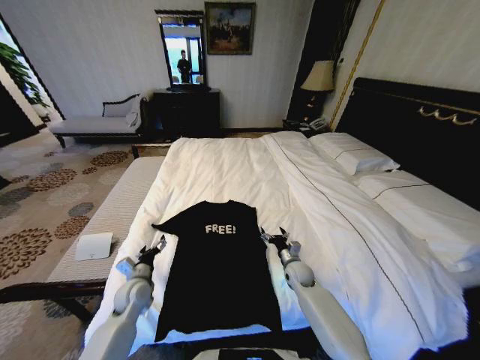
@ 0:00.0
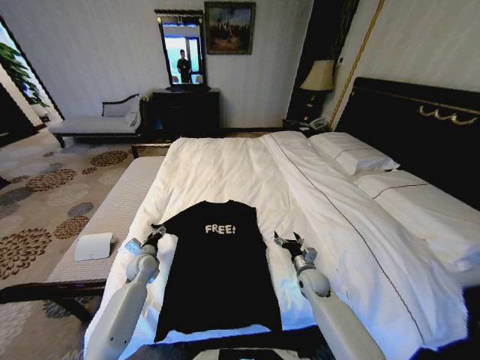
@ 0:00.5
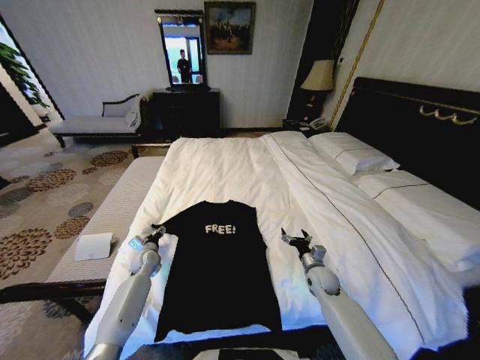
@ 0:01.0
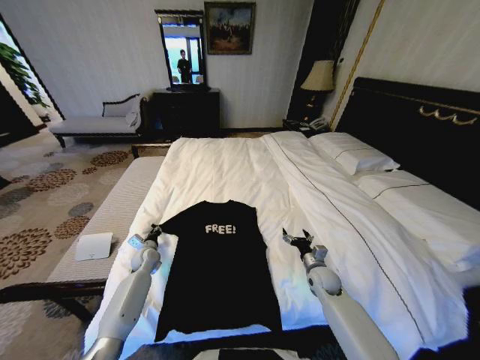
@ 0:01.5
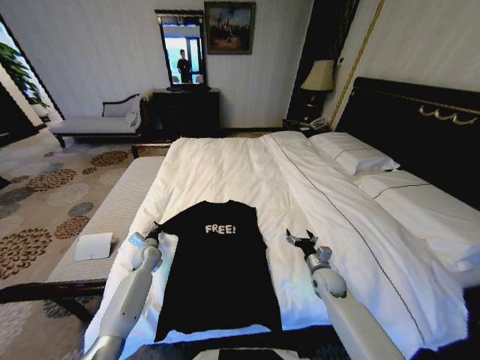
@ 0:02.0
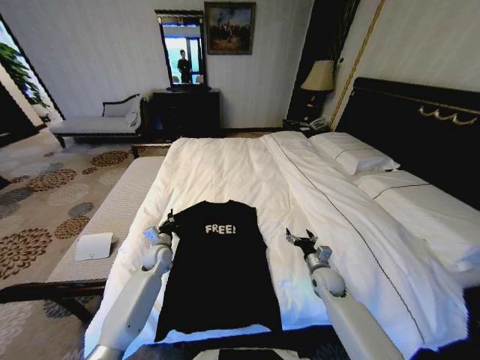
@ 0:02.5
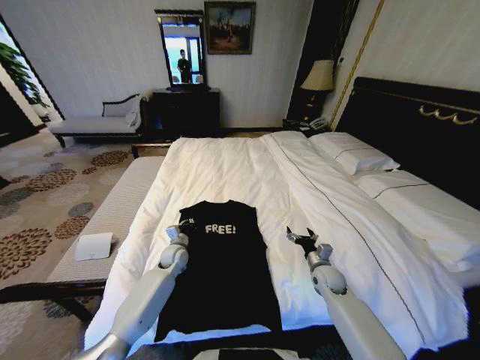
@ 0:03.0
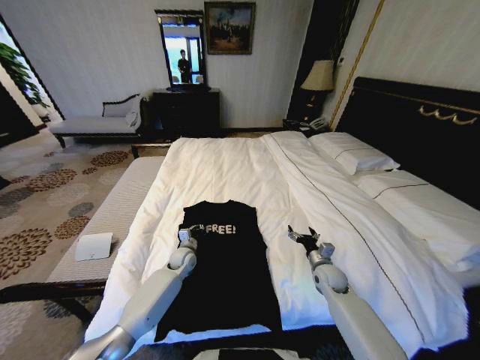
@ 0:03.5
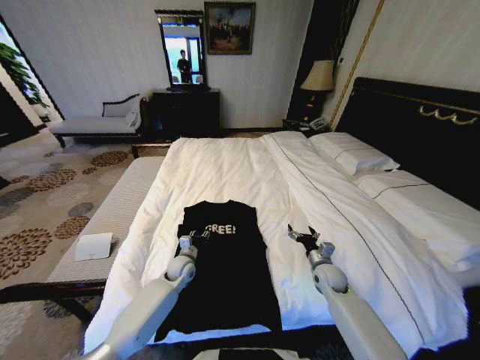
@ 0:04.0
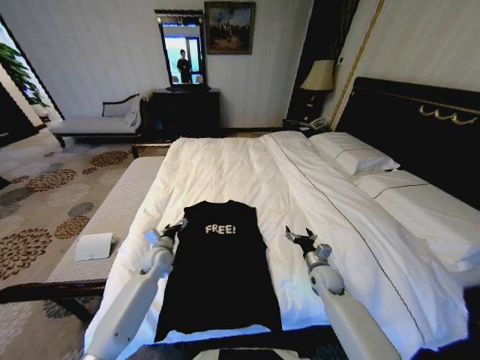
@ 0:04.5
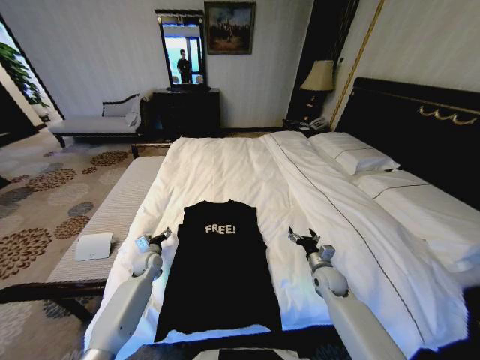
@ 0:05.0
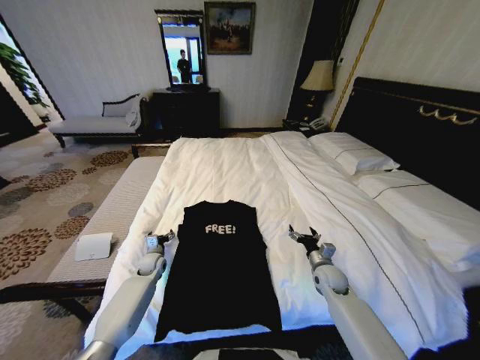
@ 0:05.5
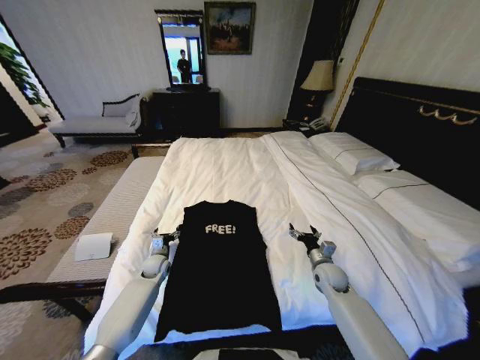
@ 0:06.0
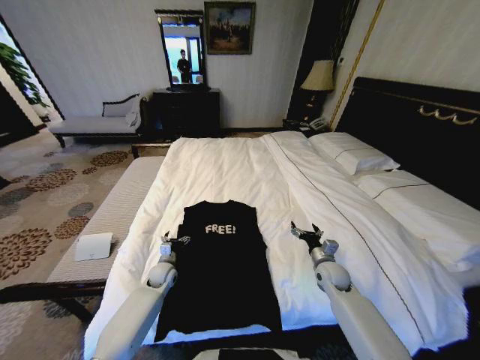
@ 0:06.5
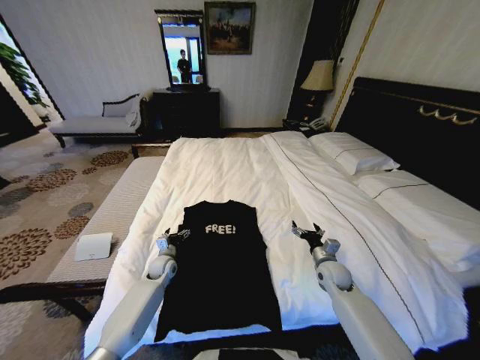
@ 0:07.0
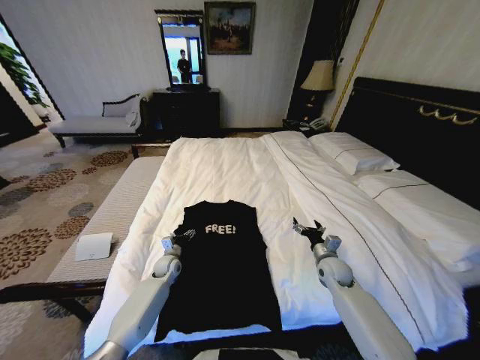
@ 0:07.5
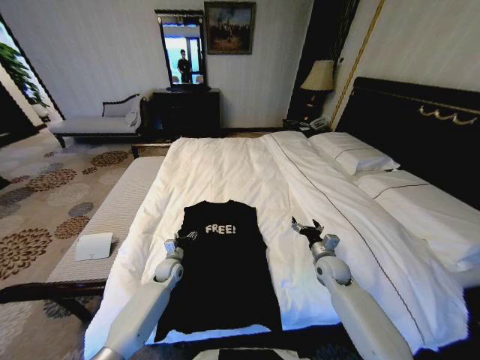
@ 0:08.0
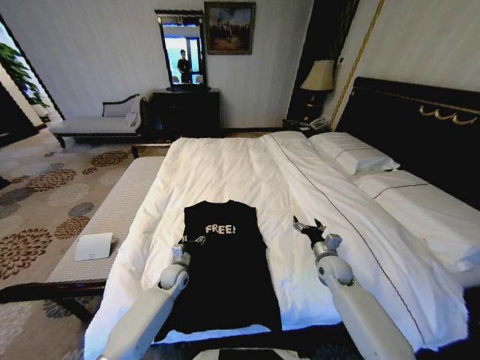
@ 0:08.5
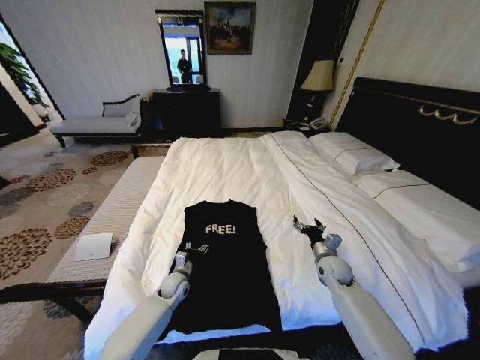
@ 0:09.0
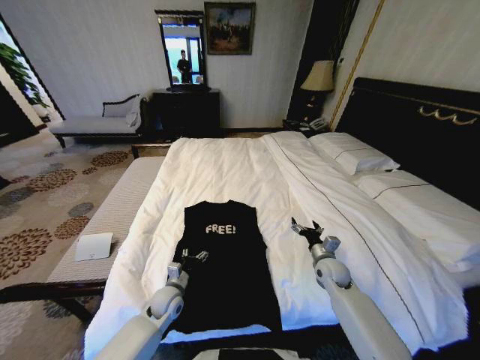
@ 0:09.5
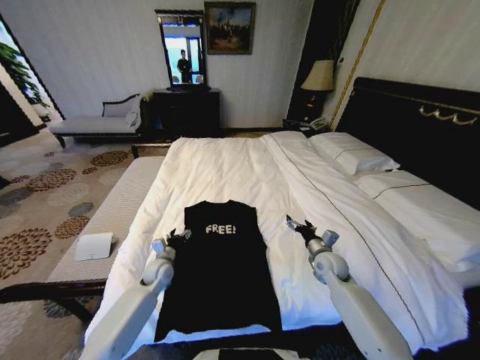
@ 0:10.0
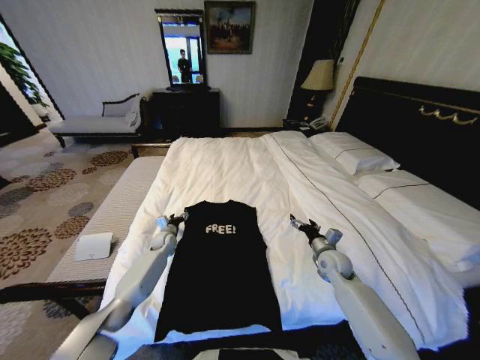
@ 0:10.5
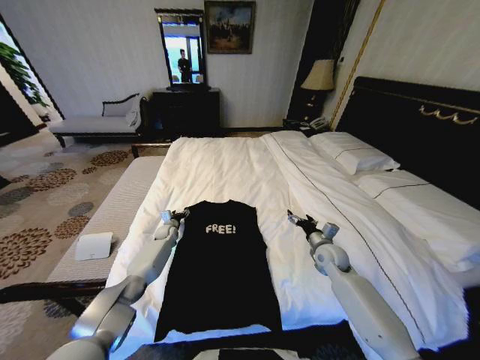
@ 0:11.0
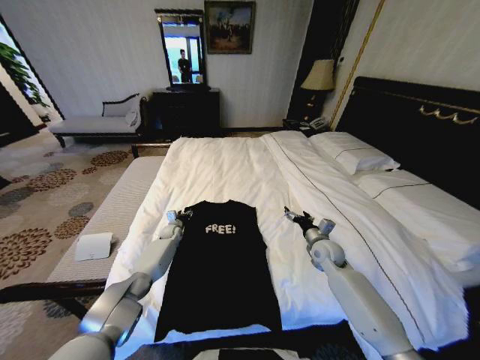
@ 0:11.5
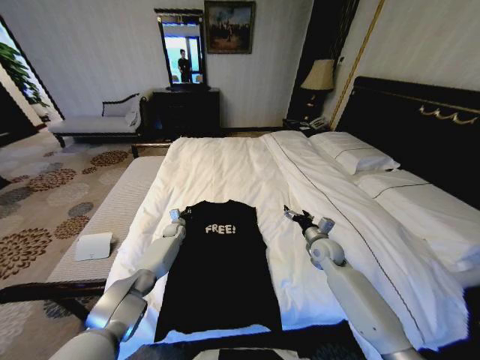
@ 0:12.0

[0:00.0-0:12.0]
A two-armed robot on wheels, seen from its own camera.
Task of the whole recording: Fold the clothes on the bed.
0:00.0 to 0:02.0: The right gripper goes some 10 cm to the right. Meanwhile the left gripper travels forward by approximately 15 cm, and closes its fingers.
0:02.0 to 0:04.0: The left gripper travels to the right by roughly 15 cm, and opens up.
0:04.0 to 0:06.0: The left gripper heads to the left, covering approximately 10 cm, and opens up.
0:06.0 to 0:08.0: The left gripper moves to the right, some 5 cm.
0:08.0 to 0:10.0: The left gripper travels backward and back again, about 10 cm each way.
0:10.0 to 0:12.0: The left gripper moves forward, roughly 20 cm, and closes its fingers.

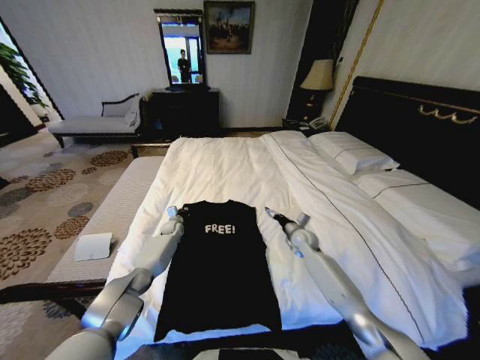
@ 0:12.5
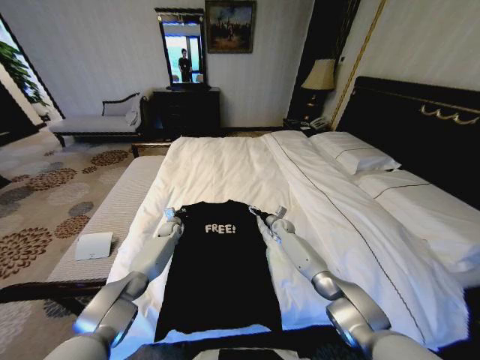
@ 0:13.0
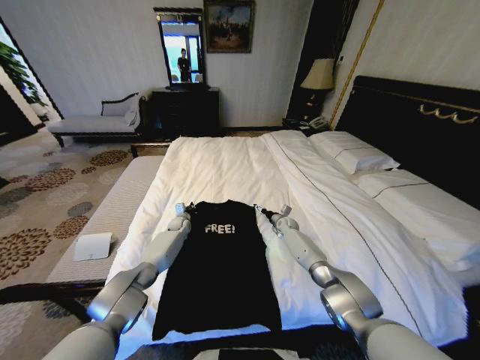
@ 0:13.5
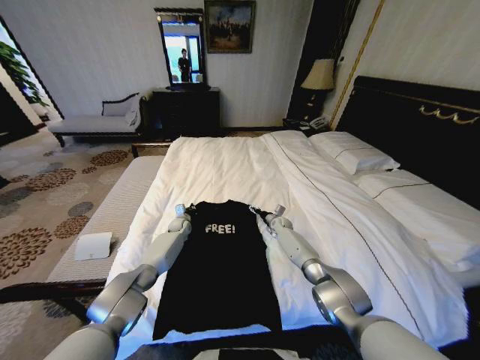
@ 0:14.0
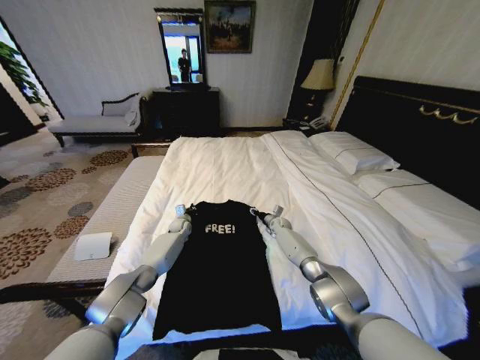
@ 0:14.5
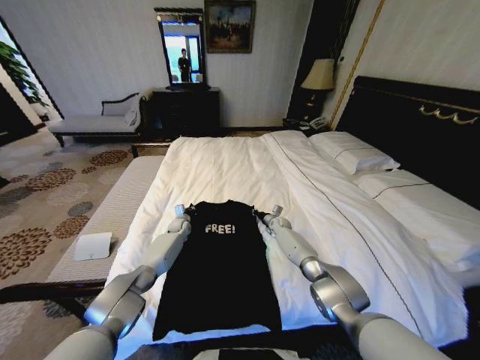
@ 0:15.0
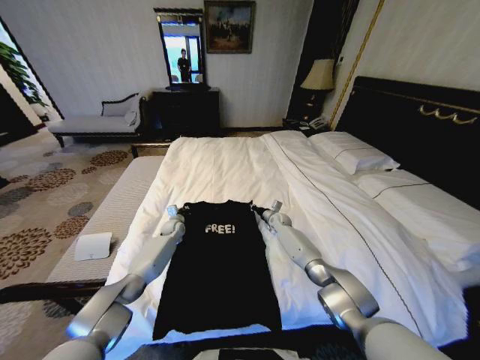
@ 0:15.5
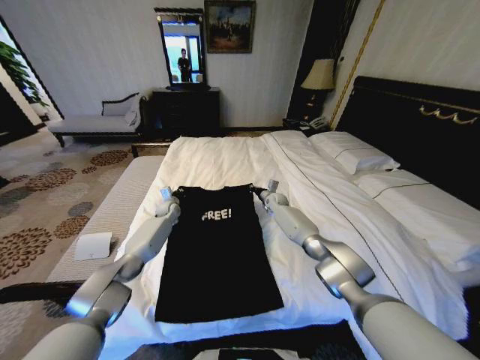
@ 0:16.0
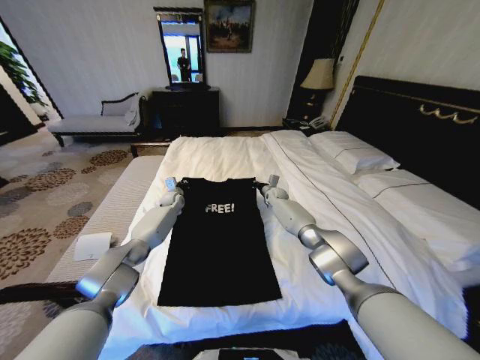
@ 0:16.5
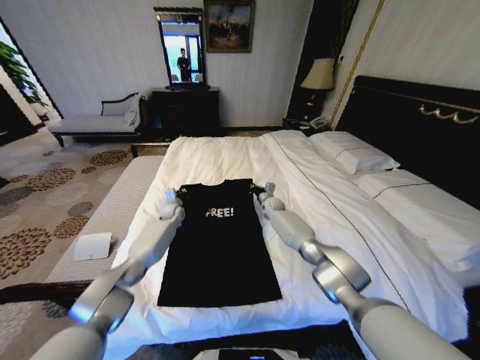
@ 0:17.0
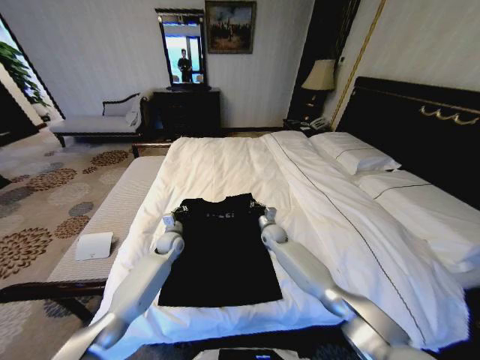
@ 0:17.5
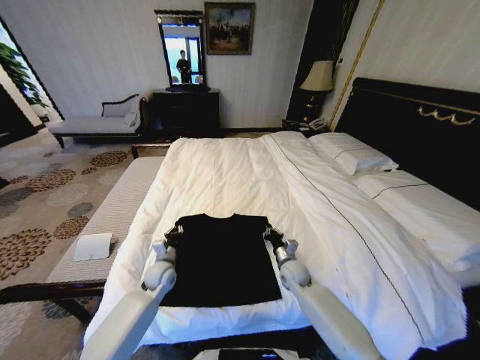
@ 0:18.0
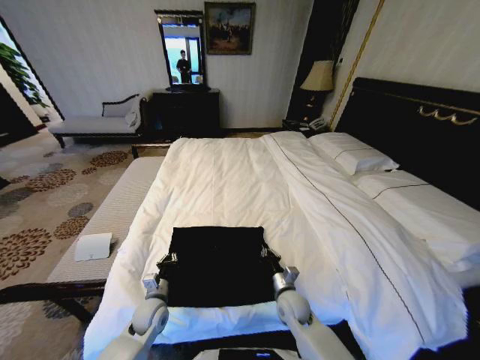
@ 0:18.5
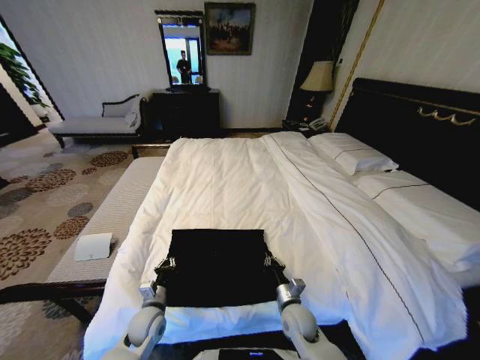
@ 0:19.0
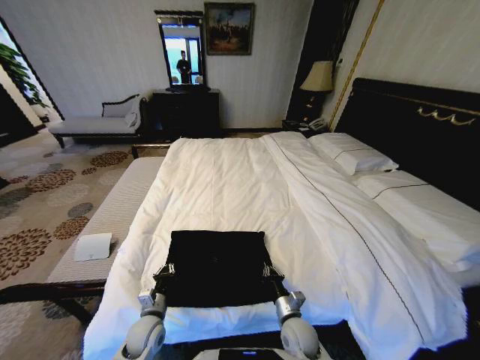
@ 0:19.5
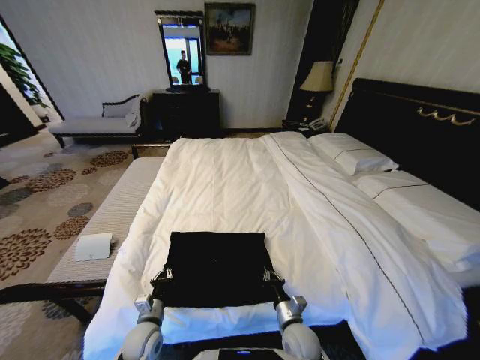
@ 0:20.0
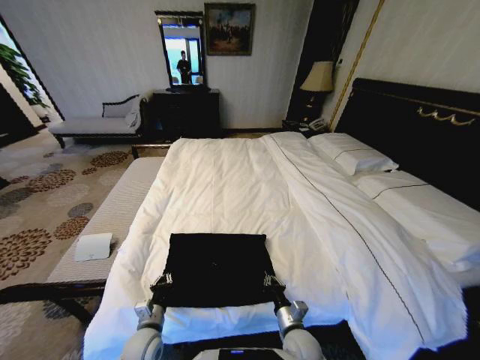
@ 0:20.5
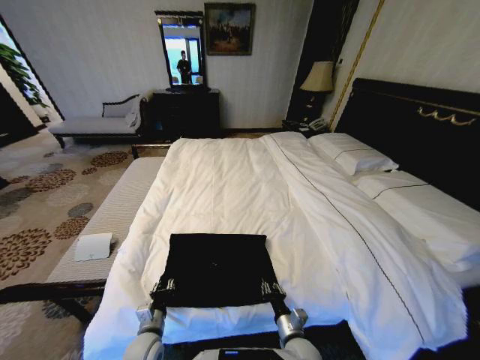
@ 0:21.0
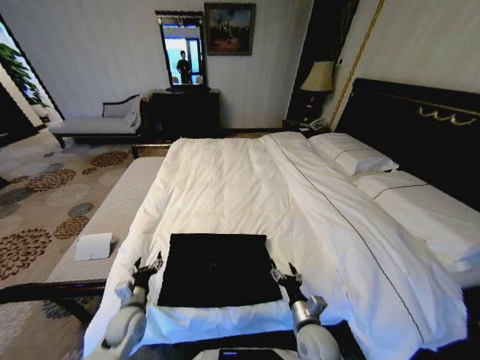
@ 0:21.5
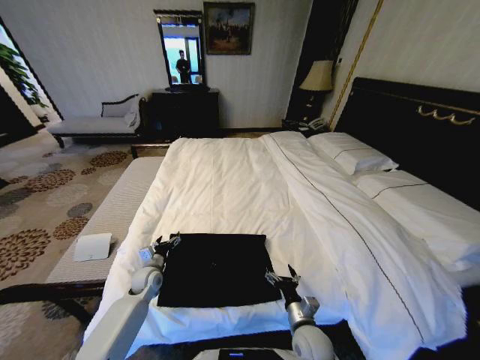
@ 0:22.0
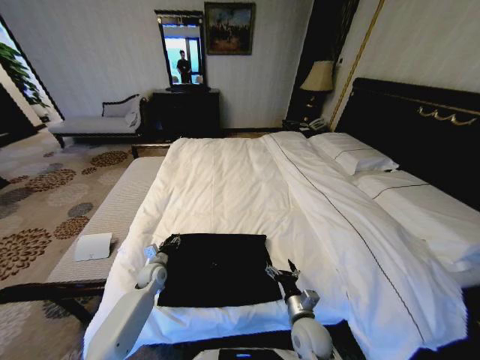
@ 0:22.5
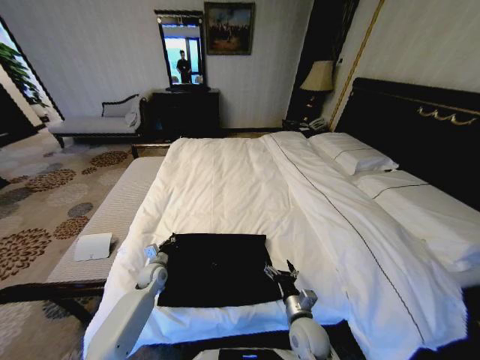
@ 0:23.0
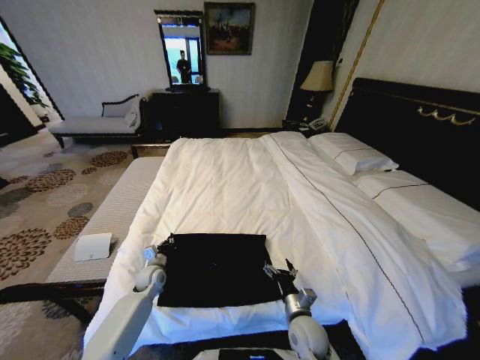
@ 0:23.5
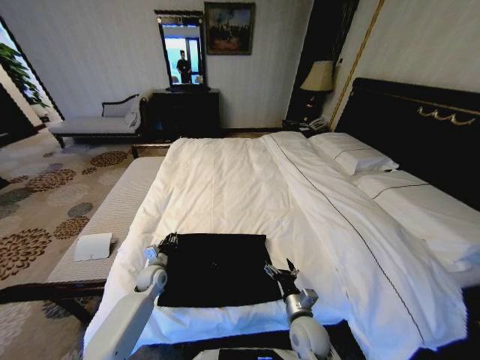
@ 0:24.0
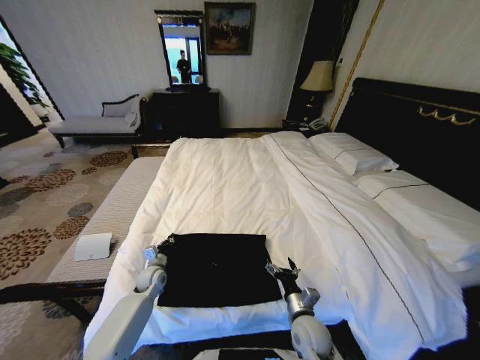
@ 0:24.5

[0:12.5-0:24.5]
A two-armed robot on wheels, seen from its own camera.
Task of the whole recording: Fold the clothes on the bed.
0:12.5 to 0:14.5: The right gripper moves forward and downward, some 15 cm, and closes.
0:14.5 to 0:16.5: Both grippers move upward and forward, about 15 cm. The right gripper closes its fingers.
0:16.5 to 0:18.5: The two grippers go approximately 40 cm backward.
0:18.5 to 0:20.5: Both grippers travel together backward, some 10 cm.
0:20.5 to 0:22.5: The left gripper moves forward, some 20 cm, and opens up, while the right gripper opens up.
0:22.5 to 0:24.5: The left gripper closes its fingers.

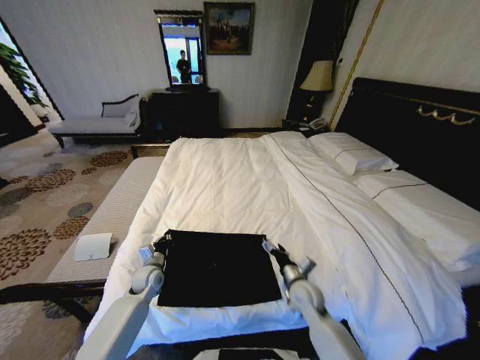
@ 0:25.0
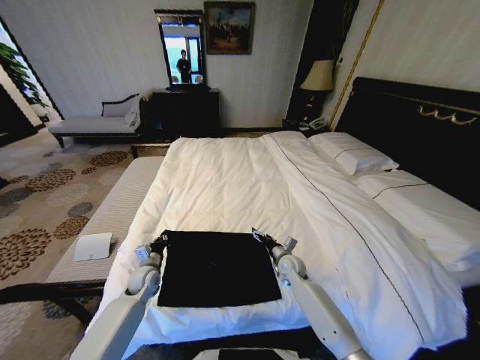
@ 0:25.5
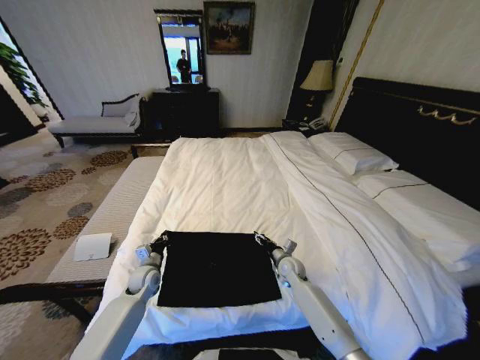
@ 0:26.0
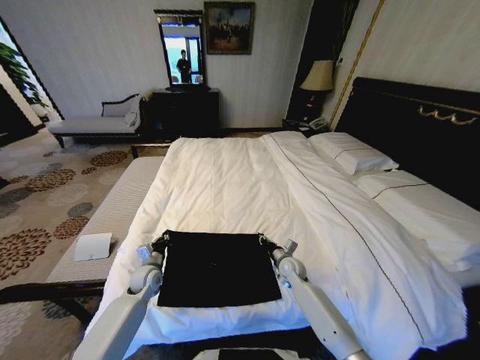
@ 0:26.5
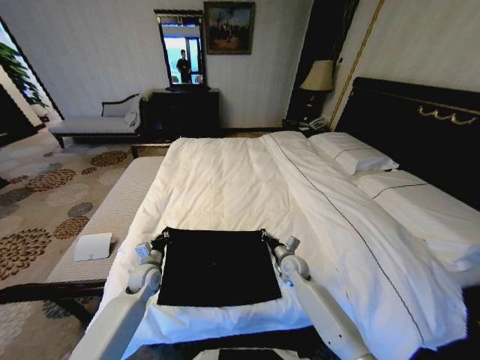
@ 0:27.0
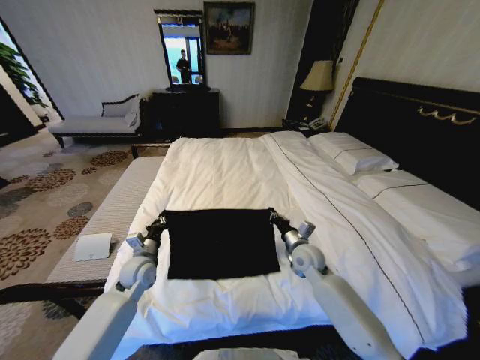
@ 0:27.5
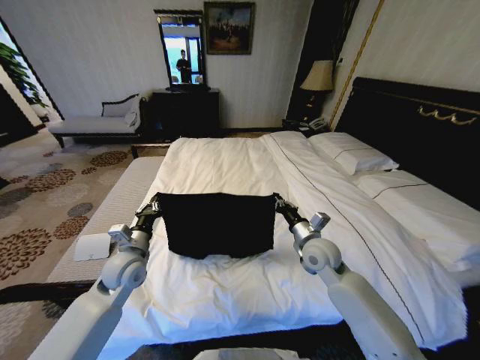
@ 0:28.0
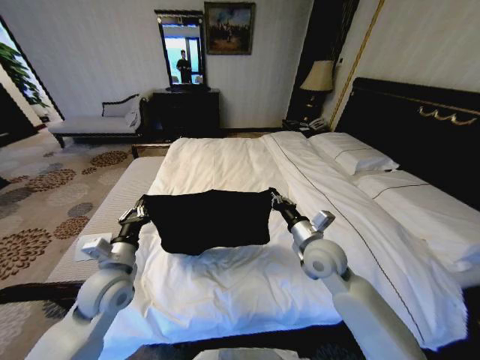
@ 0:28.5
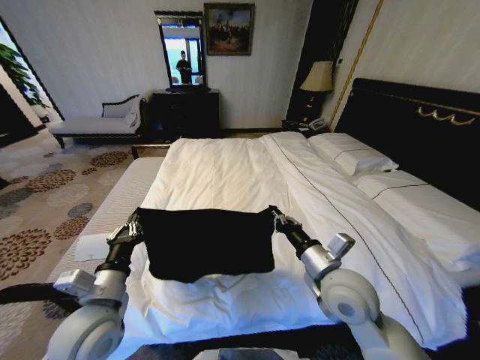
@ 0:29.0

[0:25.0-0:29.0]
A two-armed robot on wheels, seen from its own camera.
Task of the whole recording: Fold the clothes on the bed.
0:25.0 to 0:27.0: The right gripper goes about 10 cm forward, and closes.
0:27.0 to 0:29.0: Both grippers travel together upward and backward, some 25 cm.
